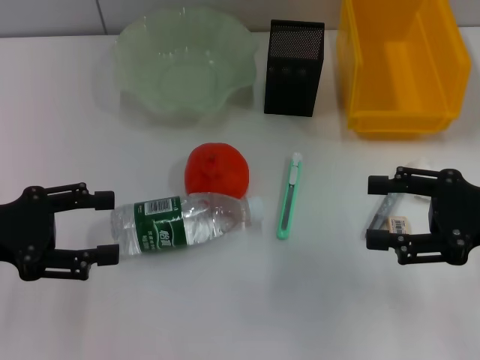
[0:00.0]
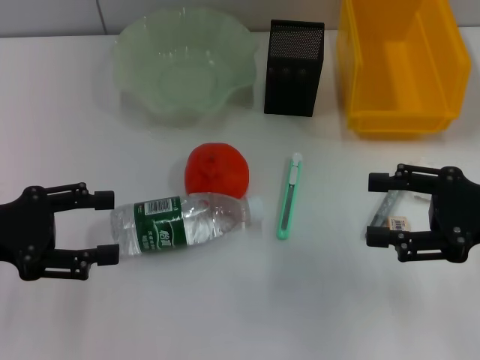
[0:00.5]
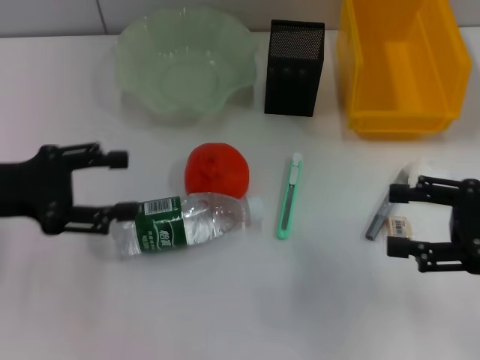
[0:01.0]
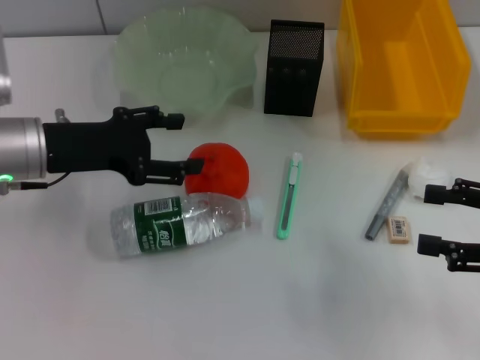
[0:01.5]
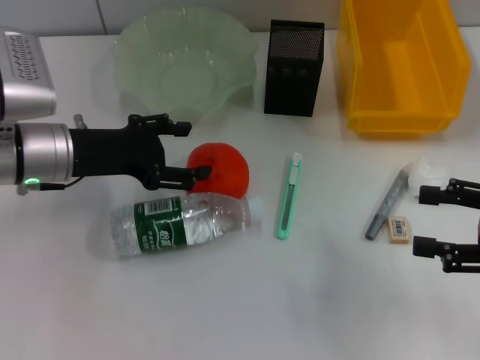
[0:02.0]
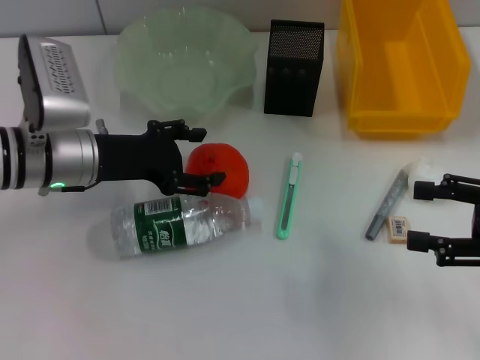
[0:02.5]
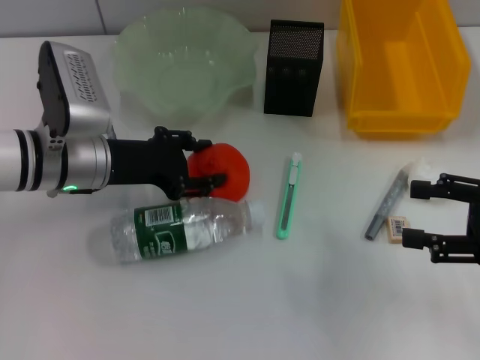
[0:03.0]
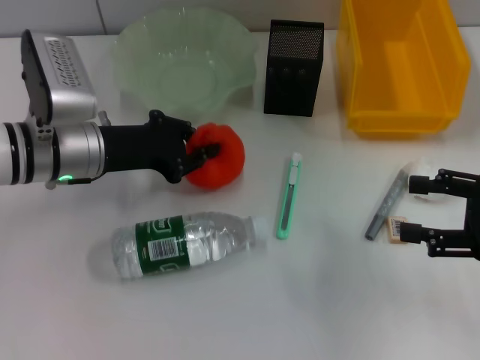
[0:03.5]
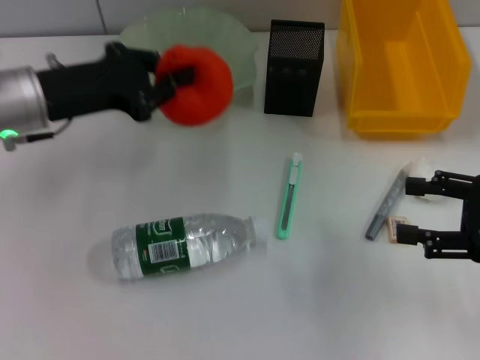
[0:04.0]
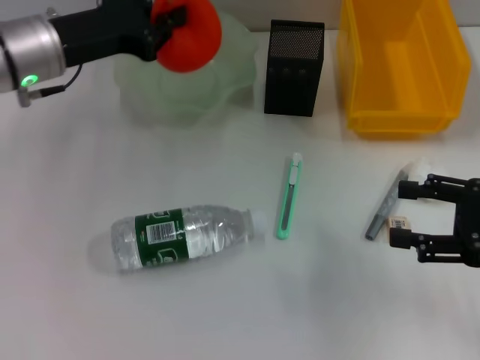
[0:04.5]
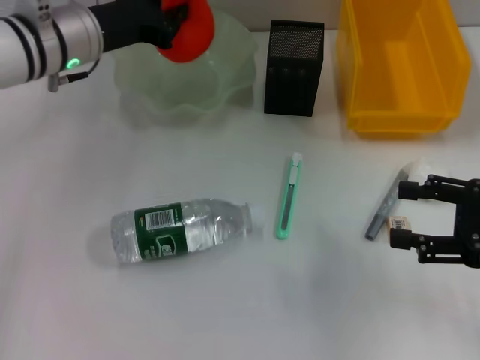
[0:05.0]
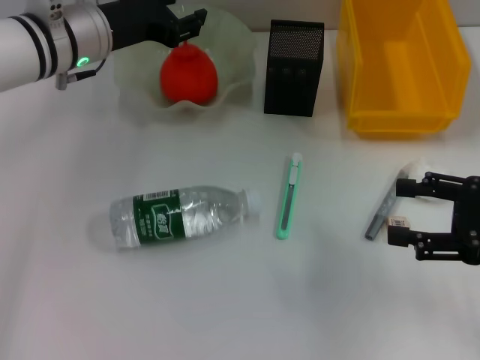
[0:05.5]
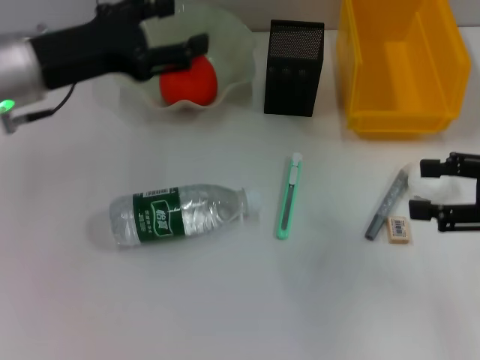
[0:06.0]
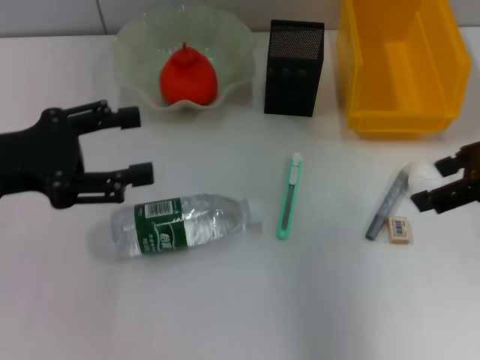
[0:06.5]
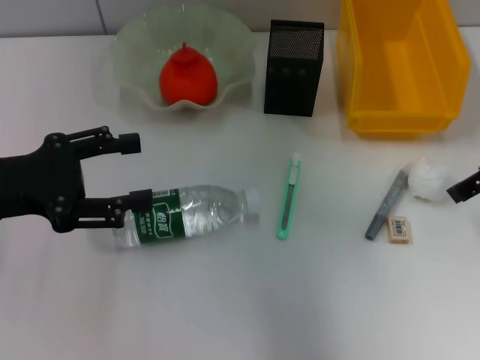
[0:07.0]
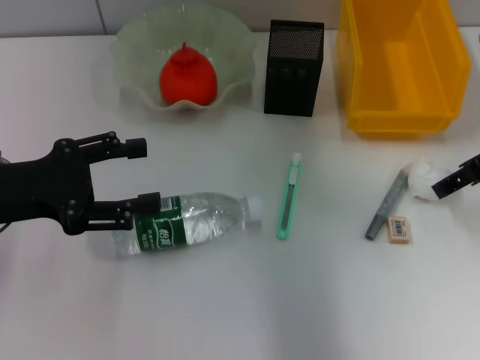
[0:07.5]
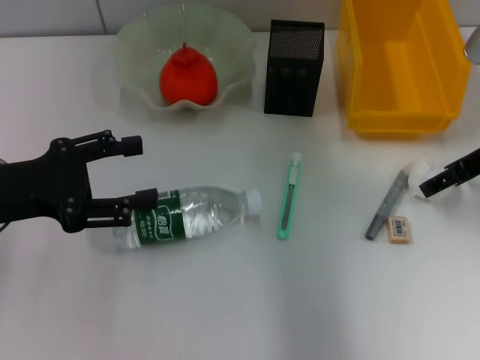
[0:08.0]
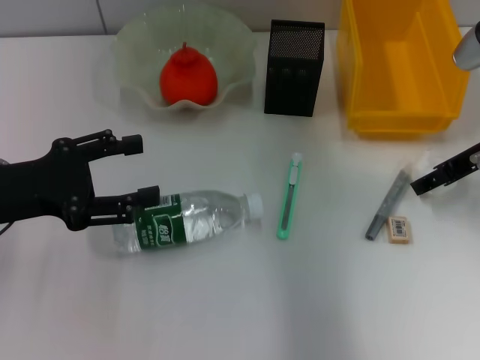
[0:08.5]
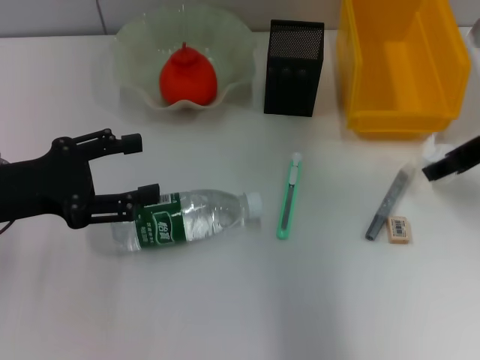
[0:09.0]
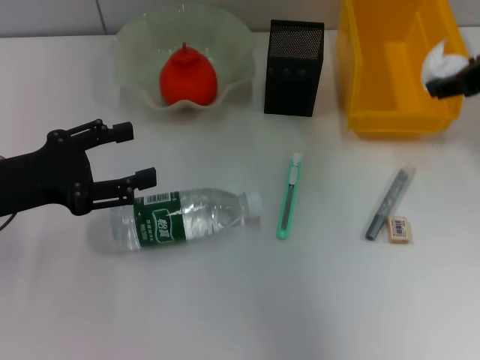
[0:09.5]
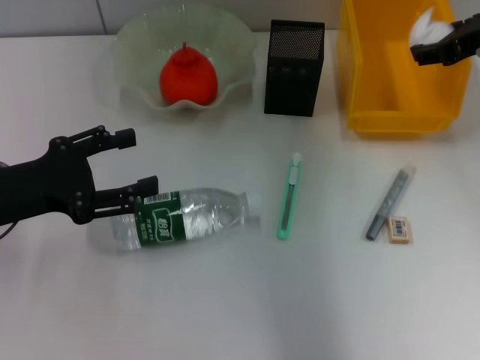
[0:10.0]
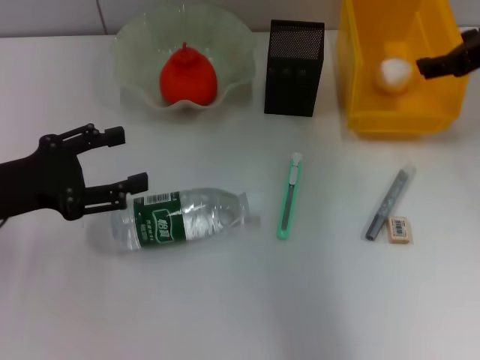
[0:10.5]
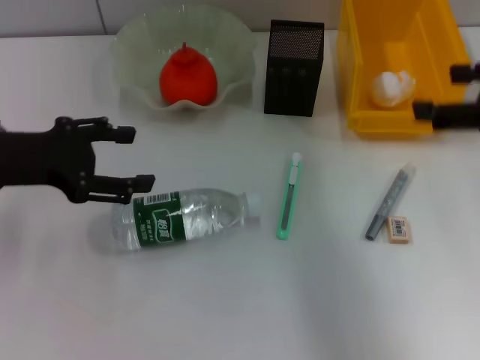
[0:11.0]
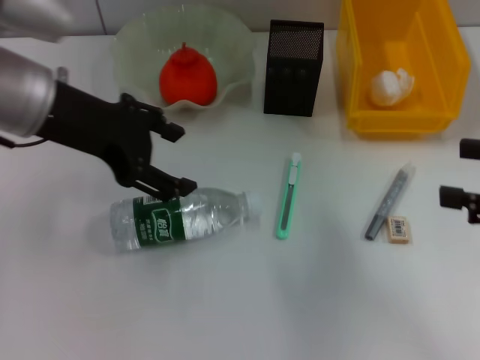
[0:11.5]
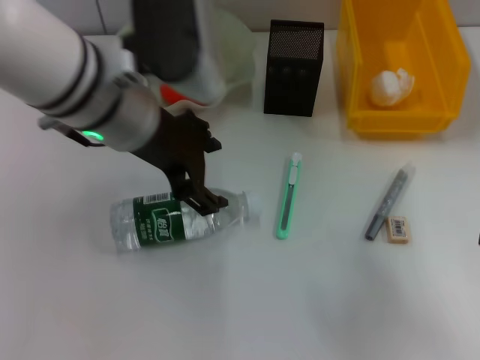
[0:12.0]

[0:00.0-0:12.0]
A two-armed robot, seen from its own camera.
Step, 0:00.0 to 0:03.0: Grab the orange with the left hand.
Step, 0:03.5 to 0:05.0: Place the orange into the fruit bowl with the left hand.
Step, 0:05.5 to 0:08.5: Grab the paper ball with the right hand.
Step, 0:09.0 to 0:10.0: Place the paper ball into the trash can with the right hand.
0:00.0 to 0:02.0: The left gripper goes some 15 cm to the right and forward.
0:02.0 to 0:04.0: The left gripper closes its fingers.
0:04.0 to 0:06.0: The left gripper goes forward and returns, about 5 cm each way, and opens.
0:06.0 to 0:08.0: The left gripper moves backward and to the left, some 10 cm. The right gripper travels forward and to the left by roughly 10 cm.
0:08.0 to 0:10.0: The right gripper travels upward by approximately 5 cm.
0:10.0 to 0:12.0: The right gripper heads backward and to the right, covering about 20 cm. Meanwhile the left gripper moves to the right and upward, about 20 cm.

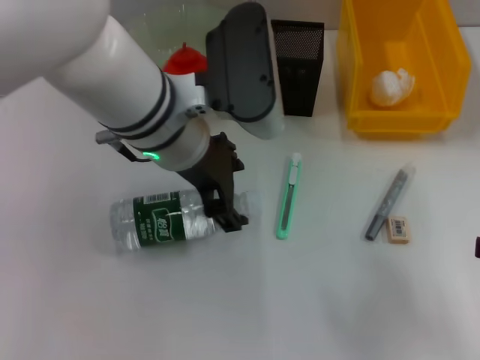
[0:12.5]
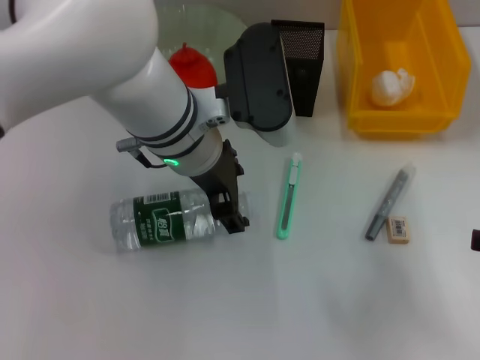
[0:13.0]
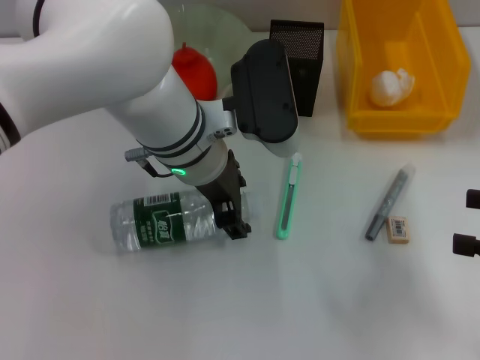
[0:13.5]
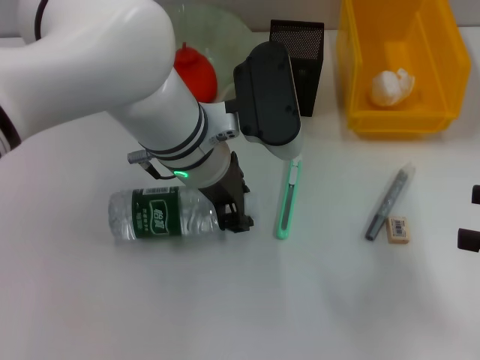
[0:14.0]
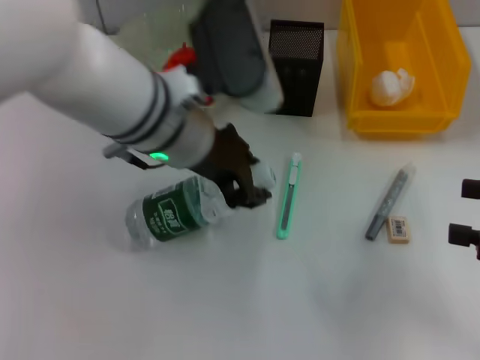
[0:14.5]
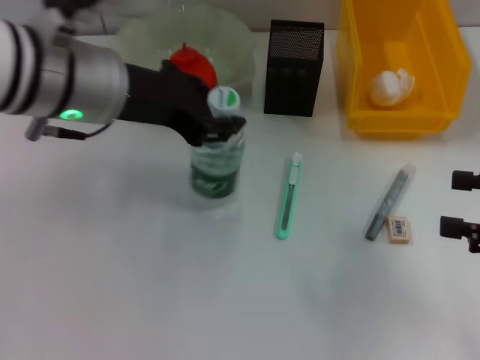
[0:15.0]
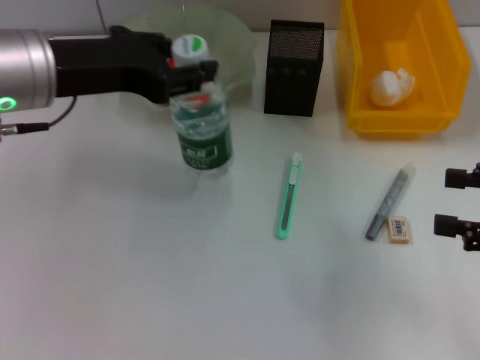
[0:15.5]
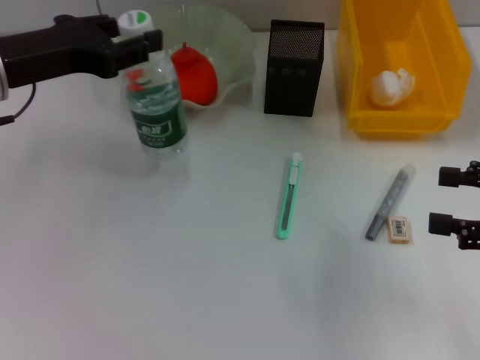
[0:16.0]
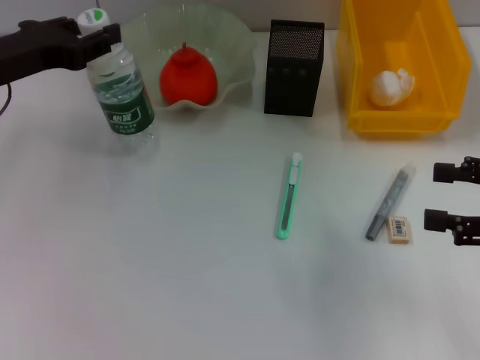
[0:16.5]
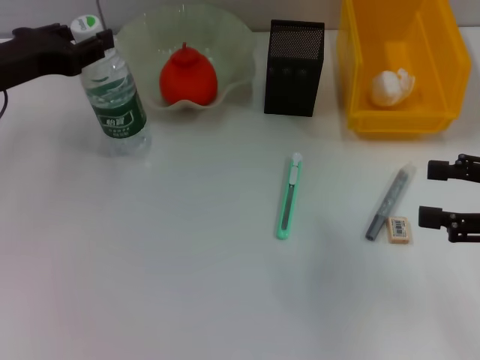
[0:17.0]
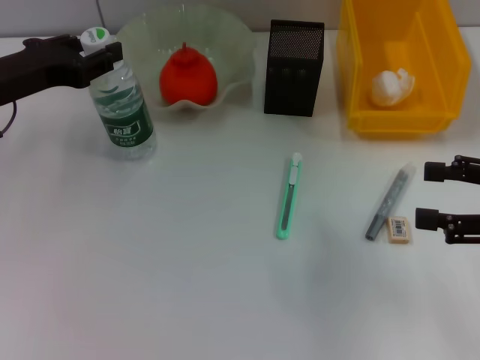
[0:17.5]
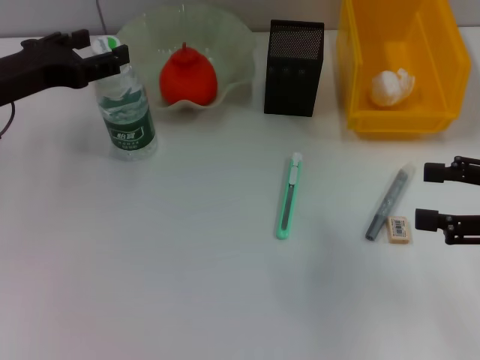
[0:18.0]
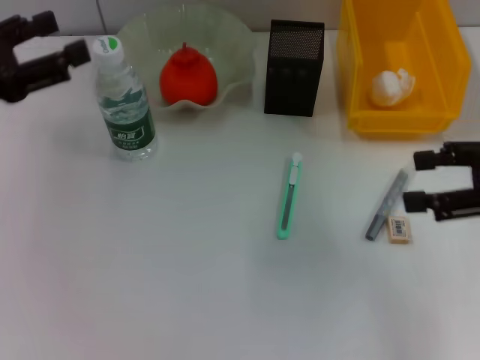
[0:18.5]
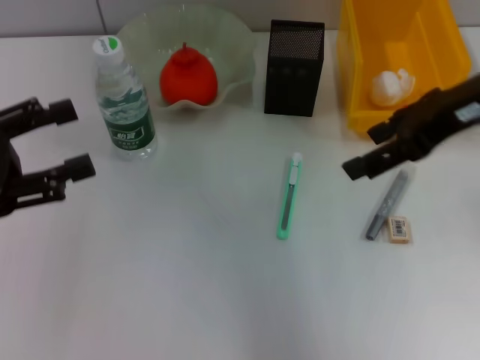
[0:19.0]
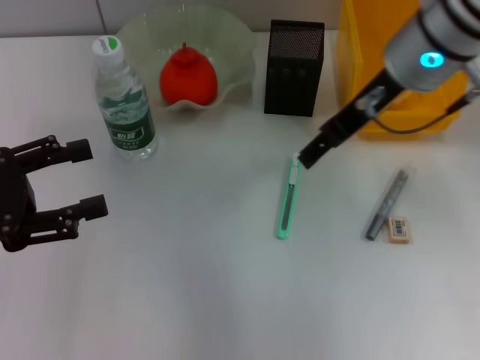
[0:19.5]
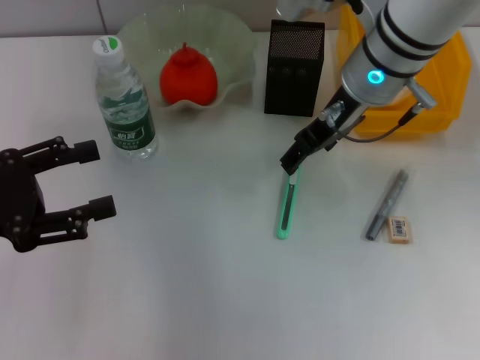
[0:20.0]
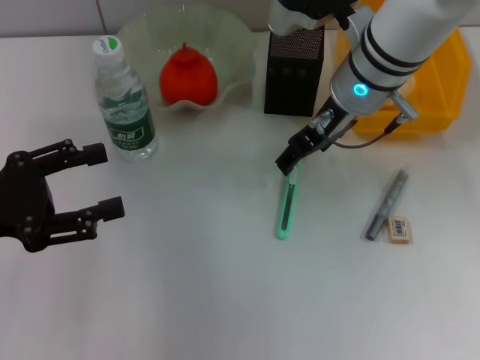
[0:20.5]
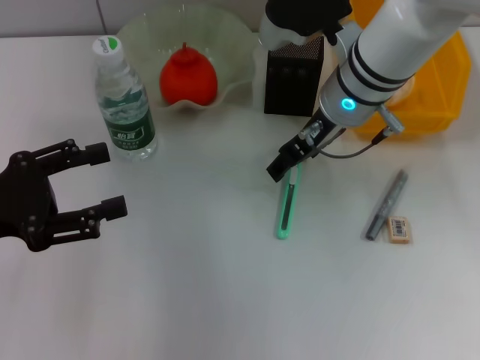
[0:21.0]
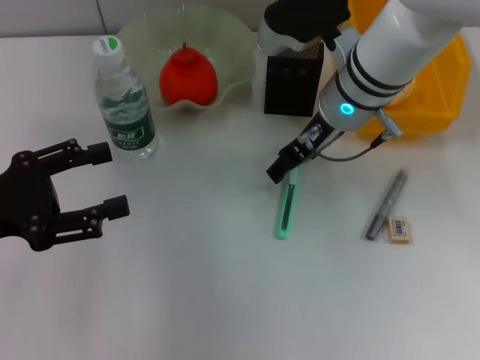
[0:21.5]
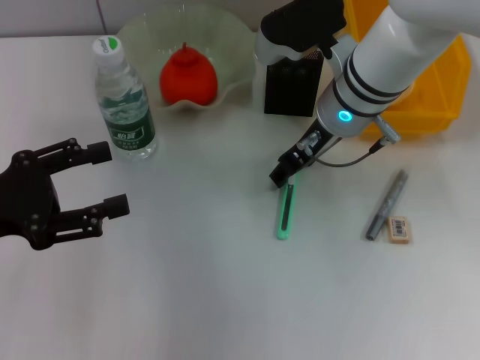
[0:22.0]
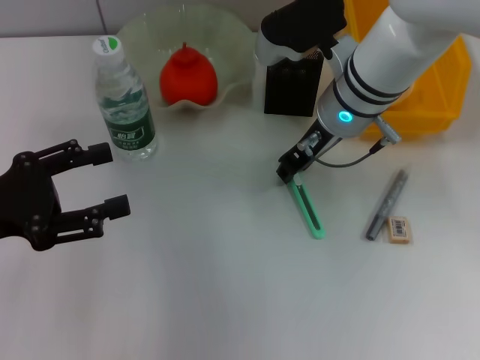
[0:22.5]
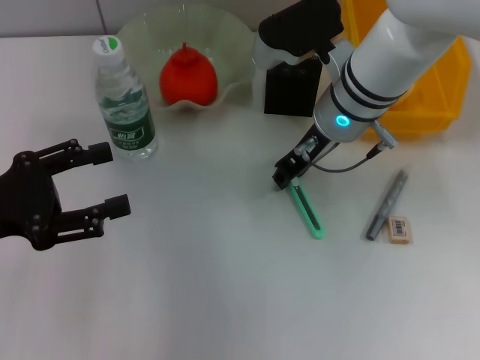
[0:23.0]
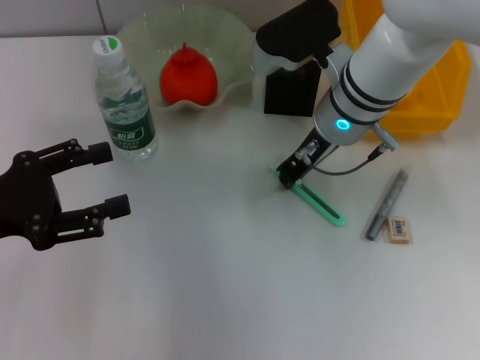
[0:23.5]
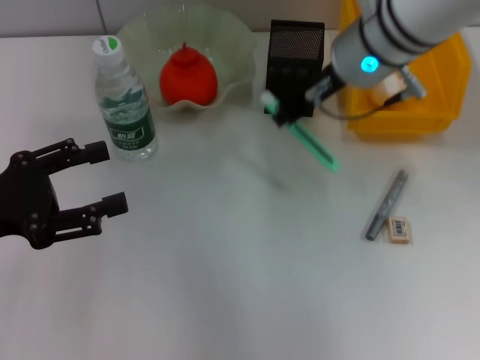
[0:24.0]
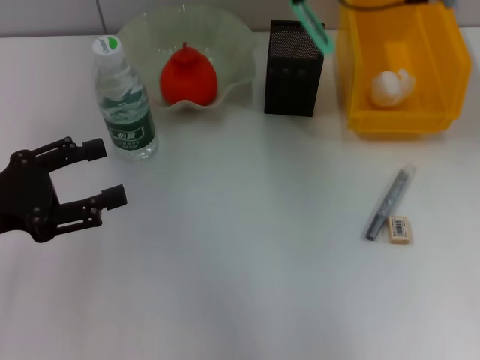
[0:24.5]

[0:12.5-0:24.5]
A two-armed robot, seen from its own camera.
Step, 0:14.5 to 0:18.0: Place the water bottle on the table with the left hand.
Step, 0:18.5 to 0:23.0: Grab the blue utility knife with the right hand.
0:12.5 to 0:14.5: The left gripper closes.
0:14.5 to 0:16.5: The left gripper travels to the left by approximately 20 cm.
0:16.5 to 0:18.5: The left gripper heads backward, covering about 5 cm, and opens its fingers; the right gripper moves about 5 cm.
0:18.5 to 0:20.5: The left gripper moves backward, roughly 5 cm. The right gripper goes some 25 cm to the left and forward.
0:20.5 to 0:22.5: The right gripper closes up.
0:22.5 to 0:24.5: The right gripper goes roughly 15 cm upward, and closes its fingers.

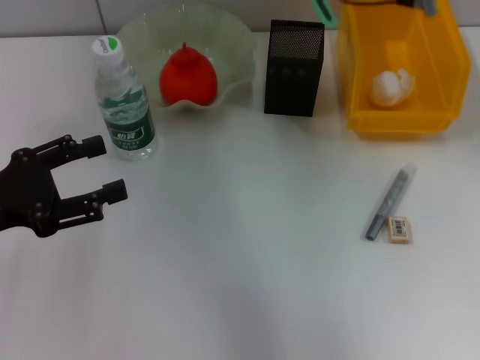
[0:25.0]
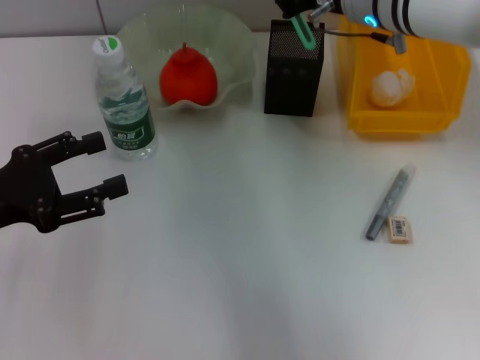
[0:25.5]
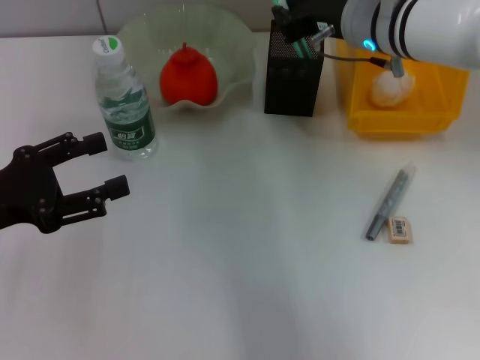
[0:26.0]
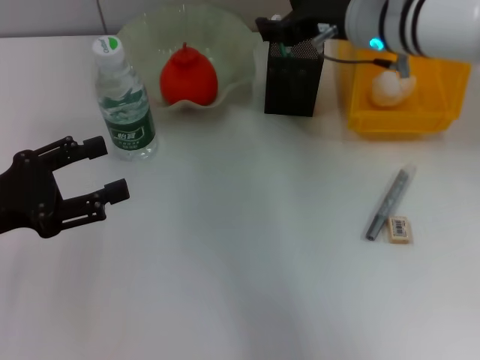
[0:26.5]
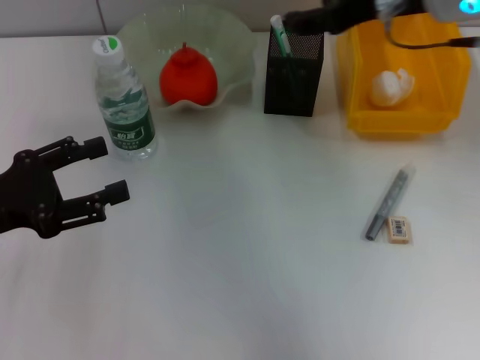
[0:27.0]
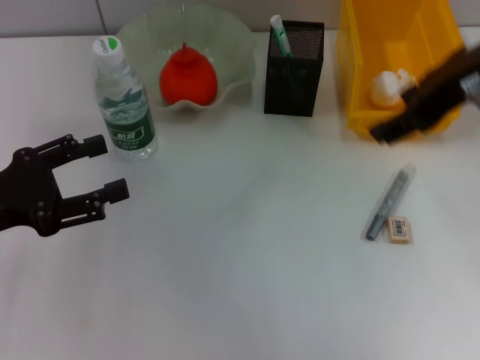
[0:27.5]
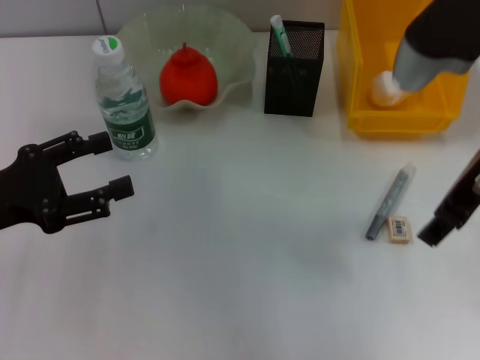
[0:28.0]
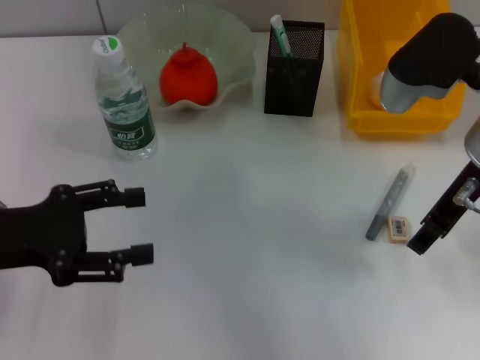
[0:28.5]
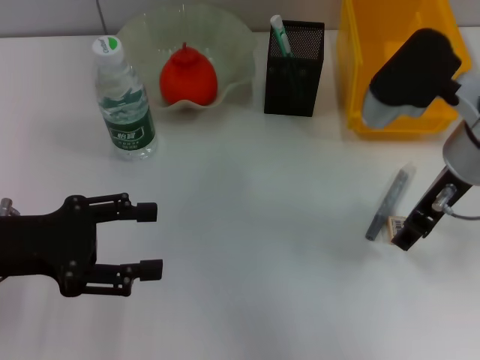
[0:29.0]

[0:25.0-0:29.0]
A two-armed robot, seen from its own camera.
0:25.0 to 0:27.0: The right gripper heads backward, covering some 5 cm, goes downward and returns, about 5 cm each way, and opens.
0:27.0 to 0:29.0: The right gripper goes approximately 10 cm downward.
